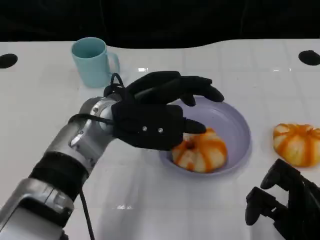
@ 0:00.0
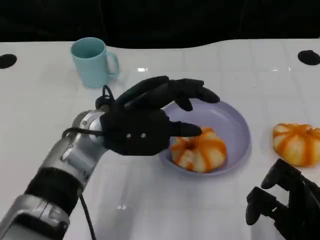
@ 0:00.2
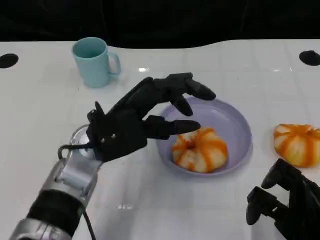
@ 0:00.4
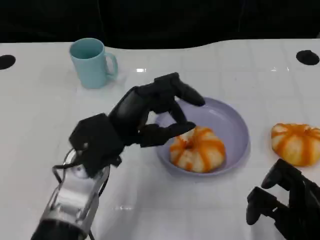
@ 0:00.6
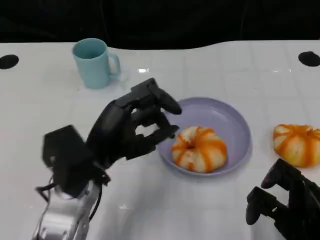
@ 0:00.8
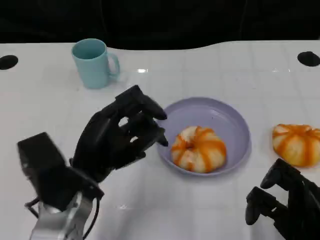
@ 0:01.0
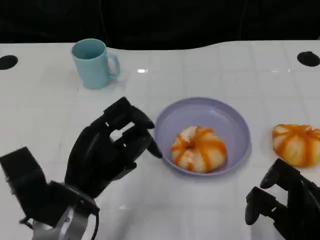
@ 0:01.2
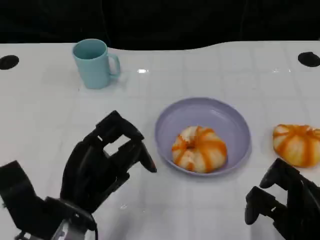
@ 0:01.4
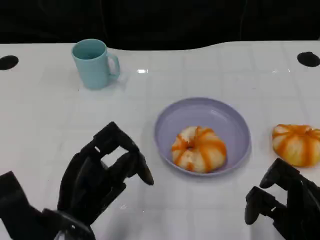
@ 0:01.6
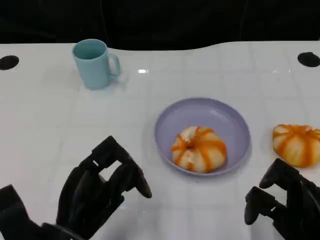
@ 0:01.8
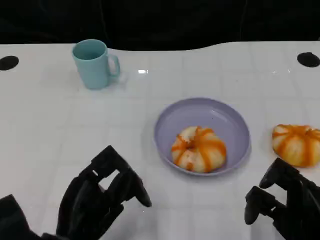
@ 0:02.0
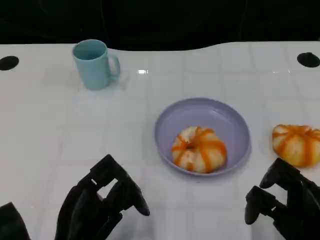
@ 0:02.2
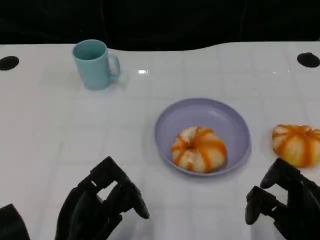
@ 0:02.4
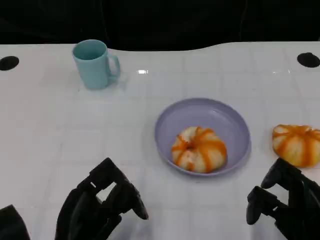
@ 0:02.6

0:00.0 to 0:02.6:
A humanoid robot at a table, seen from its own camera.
Task of the whole recording: Grasp the bread from the table and place it into the plate.
0:00.0 to 0:01.2: The left hand heads backward, to the left and downward, covering some 15 cm.
0:01.2 to 0:02.6: The left hand travels backward by approximately 5 cm.
